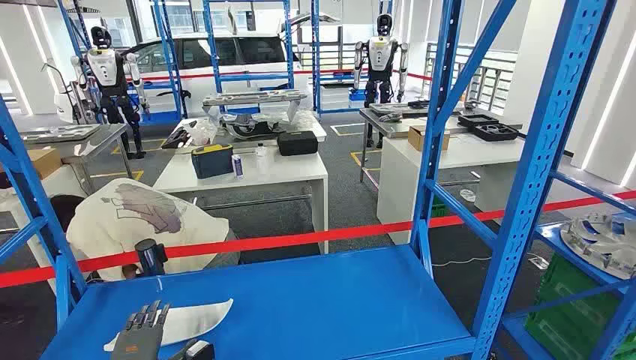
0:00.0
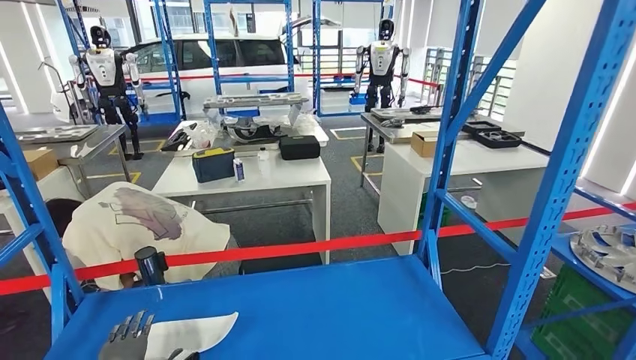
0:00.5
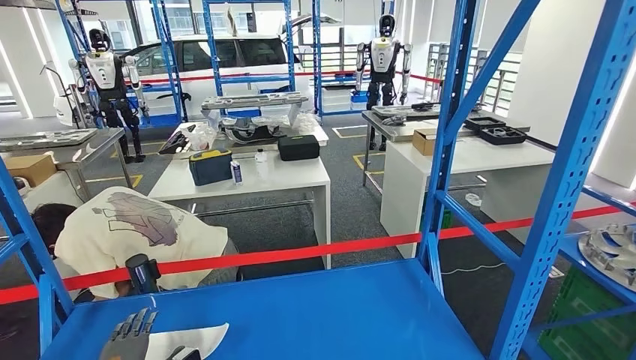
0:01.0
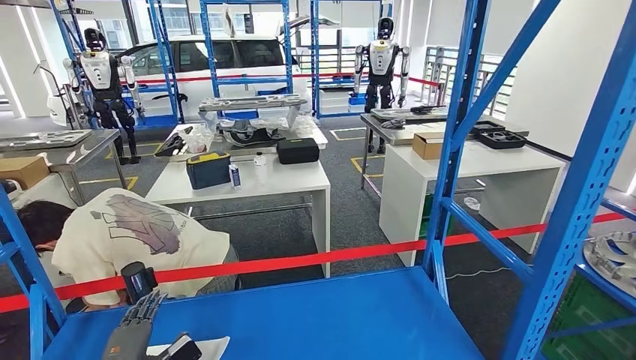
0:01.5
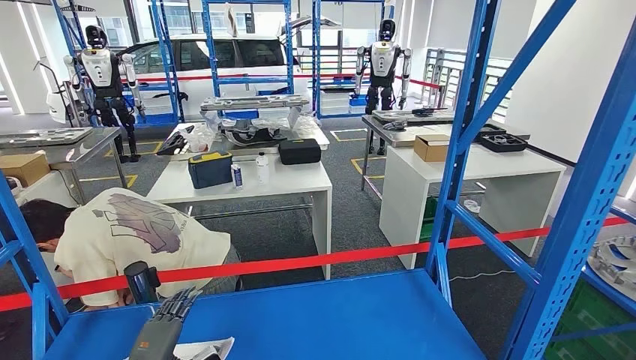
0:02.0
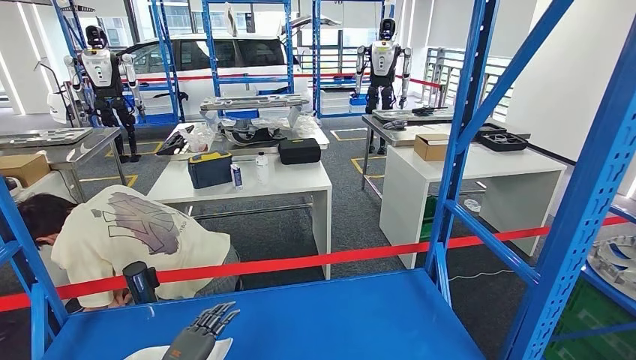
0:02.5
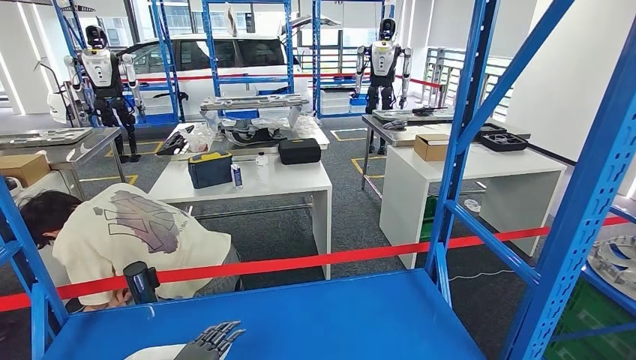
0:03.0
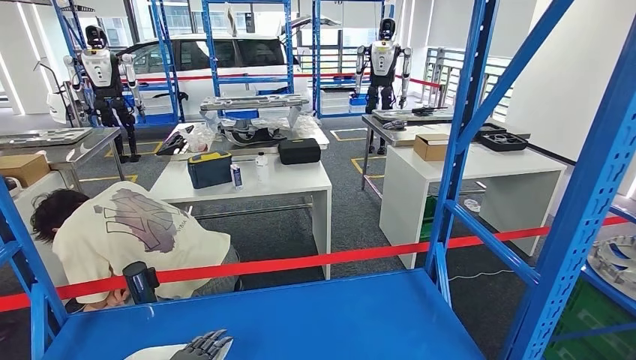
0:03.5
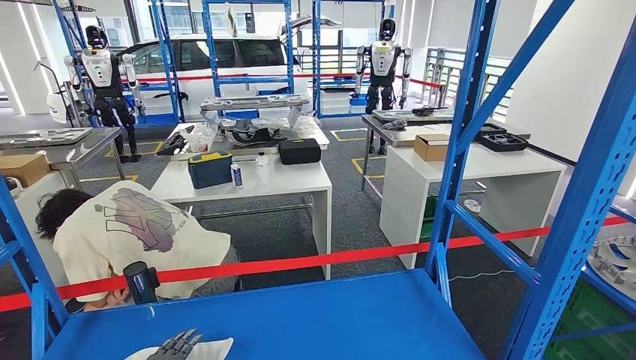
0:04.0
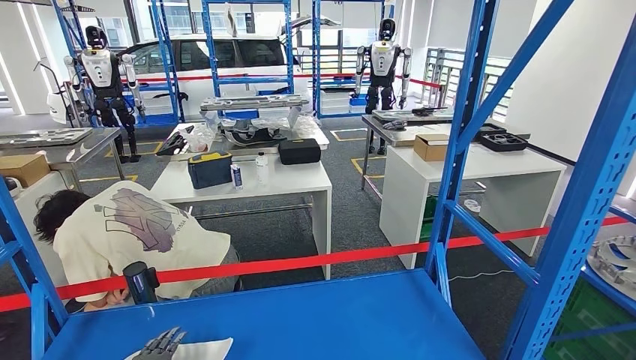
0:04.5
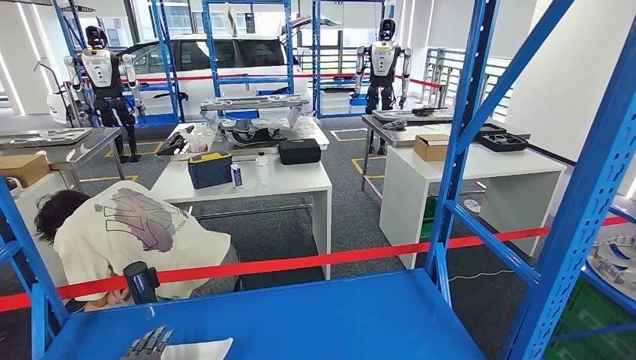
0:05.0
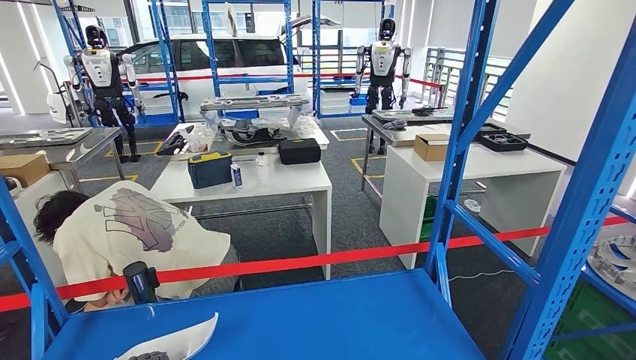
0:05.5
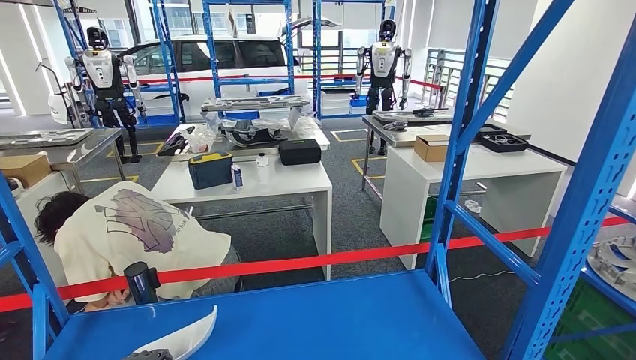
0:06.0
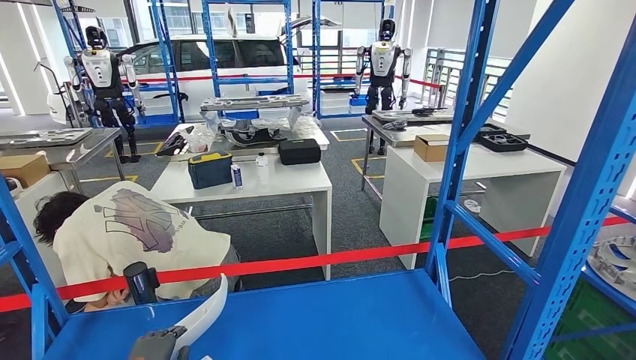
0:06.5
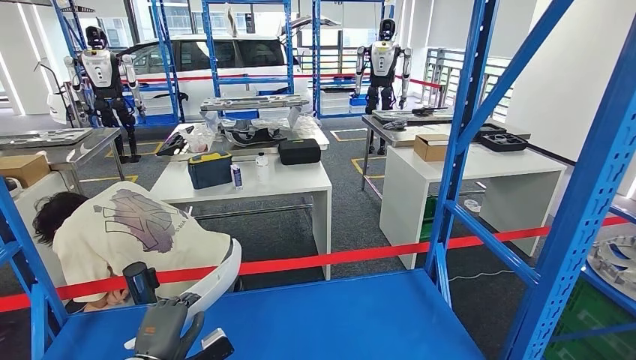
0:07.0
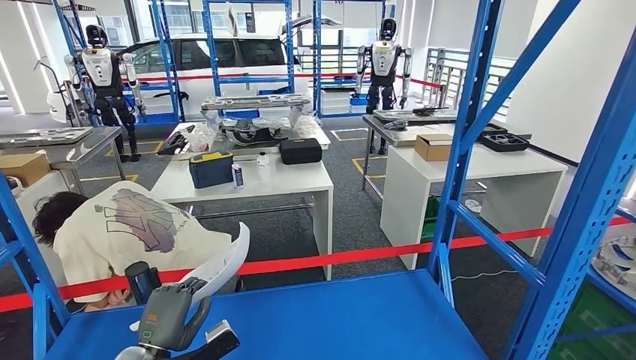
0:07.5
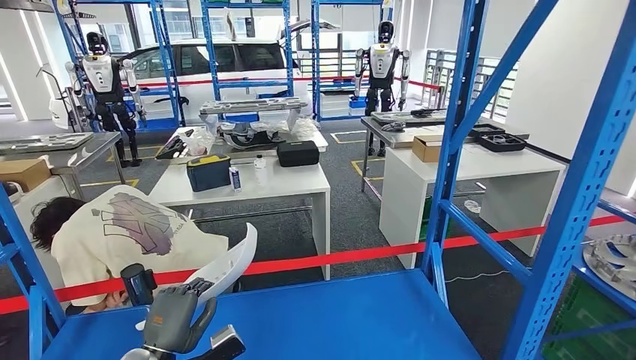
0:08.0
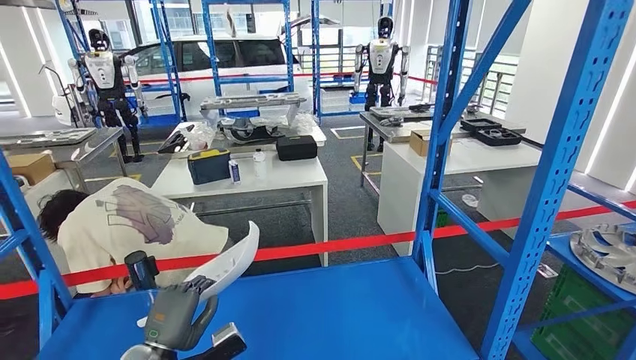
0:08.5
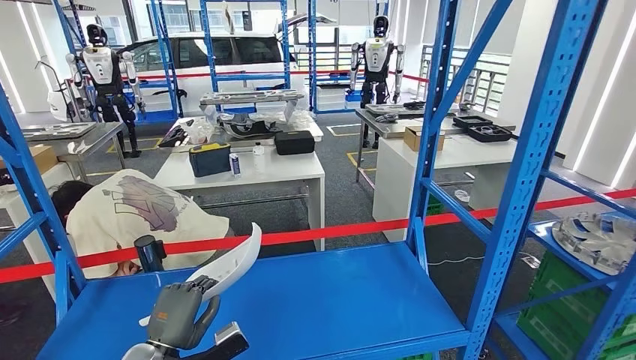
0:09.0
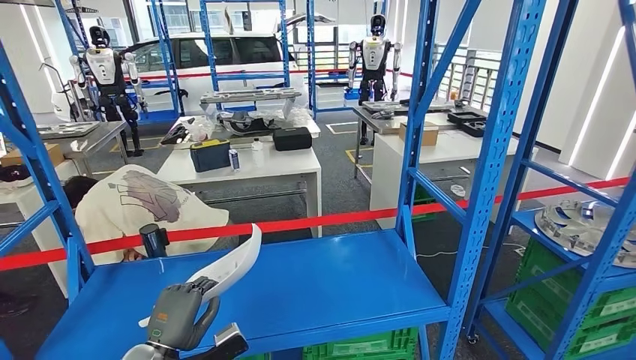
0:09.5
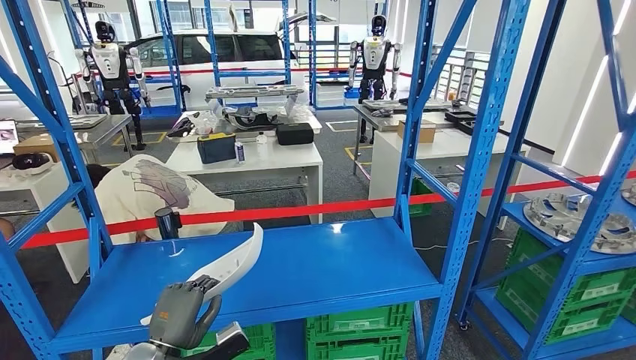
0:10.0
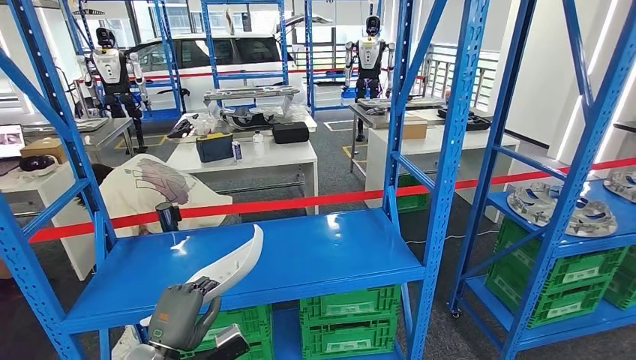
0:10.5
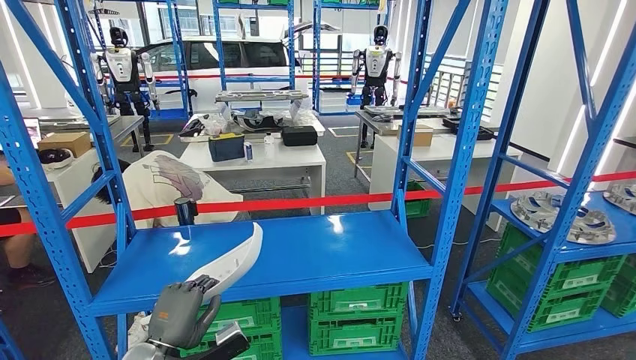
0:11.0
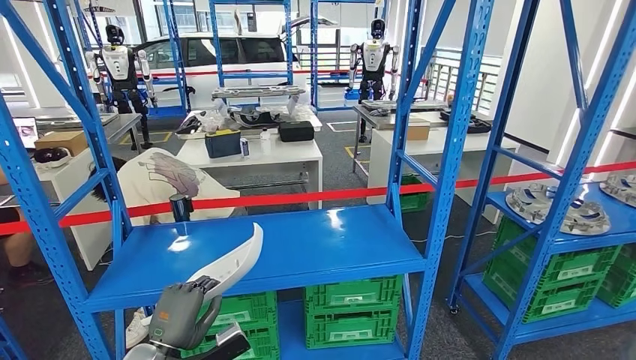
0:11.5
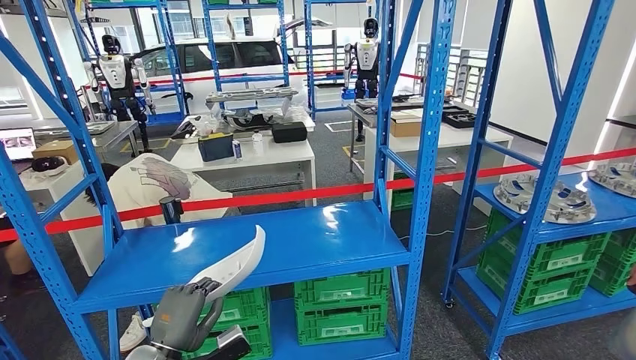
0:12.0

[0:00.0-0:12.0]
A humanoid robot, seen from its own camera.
Step, 0:00.0 to 0:07.0: Pick up the small parts from the shelf.
0:02.0 to 0:04.0: The left hand changes place by approximately 5 cm.
0:04.0 to 0:06.0: There are only small adjustments of the hands.

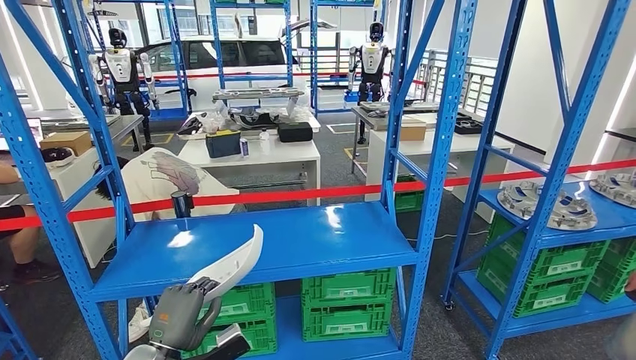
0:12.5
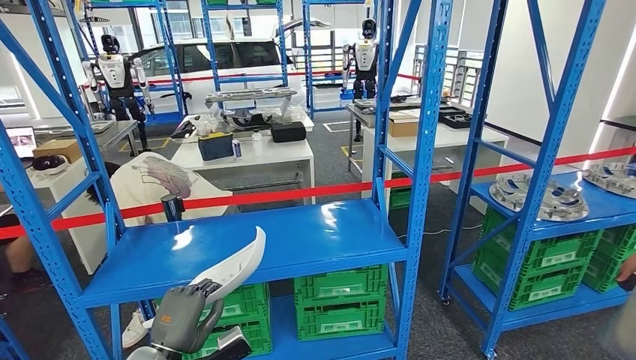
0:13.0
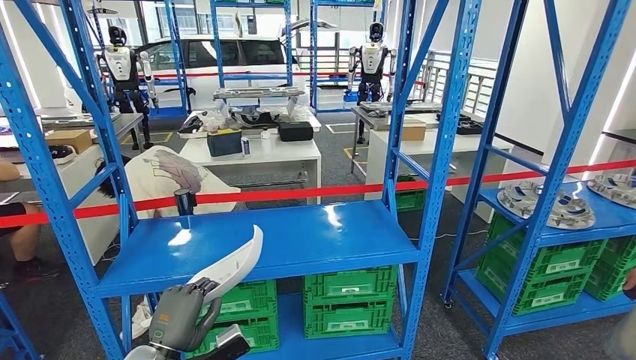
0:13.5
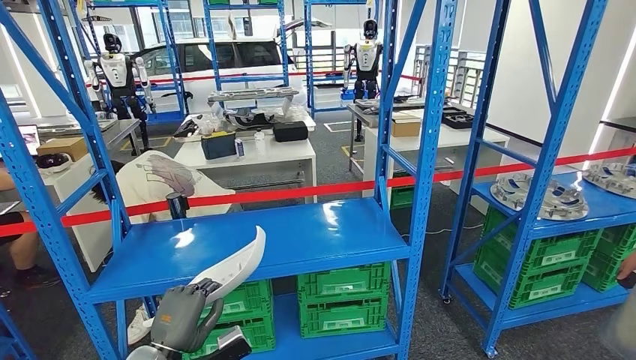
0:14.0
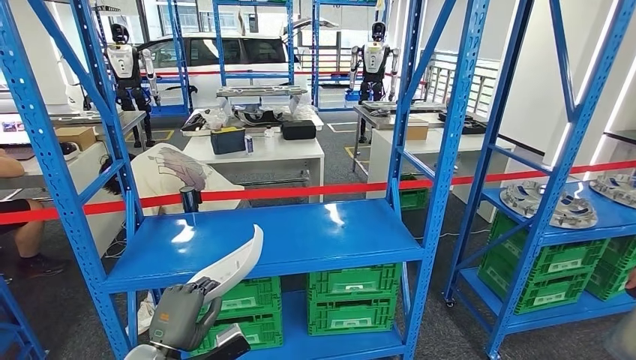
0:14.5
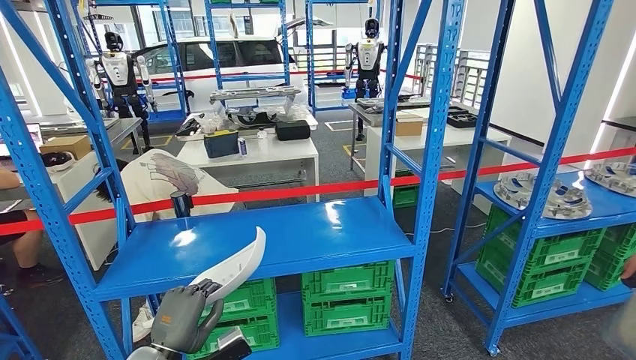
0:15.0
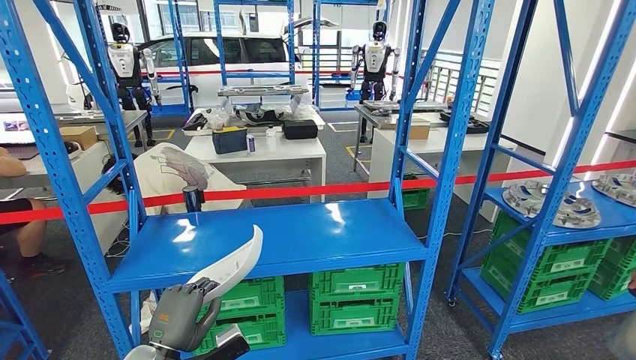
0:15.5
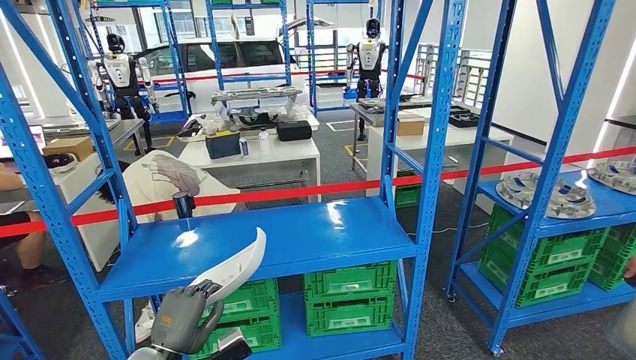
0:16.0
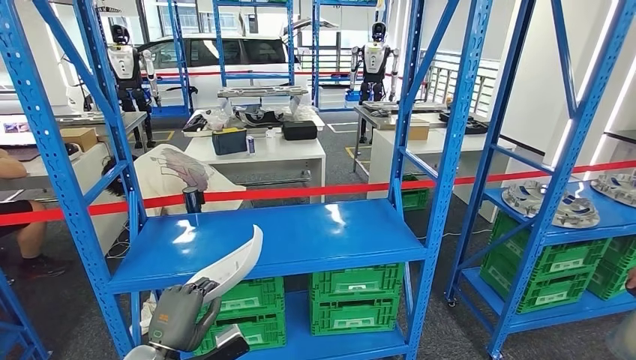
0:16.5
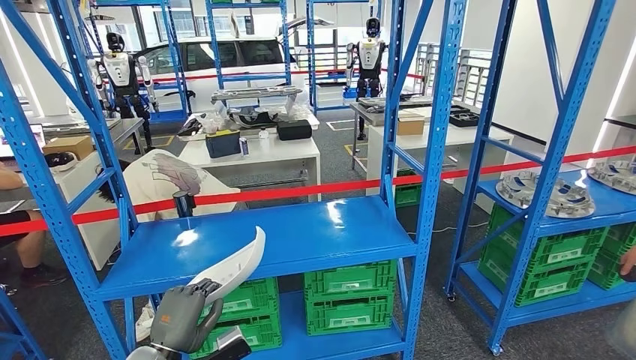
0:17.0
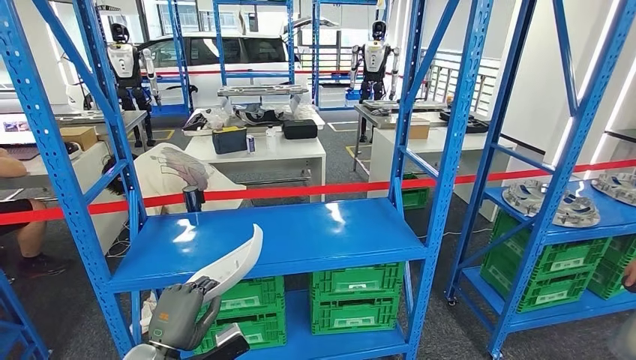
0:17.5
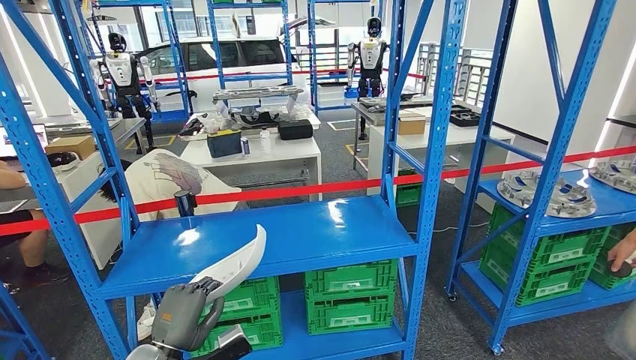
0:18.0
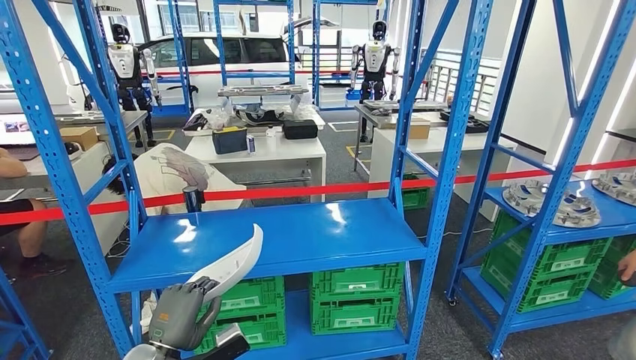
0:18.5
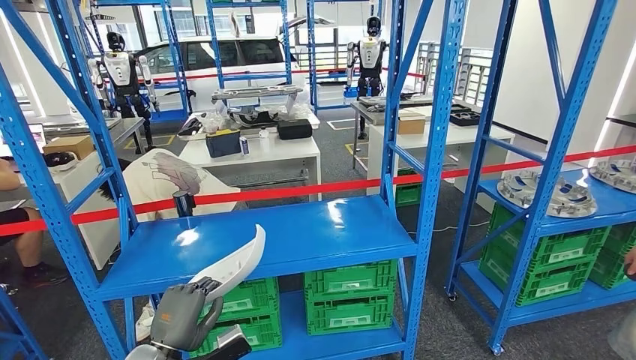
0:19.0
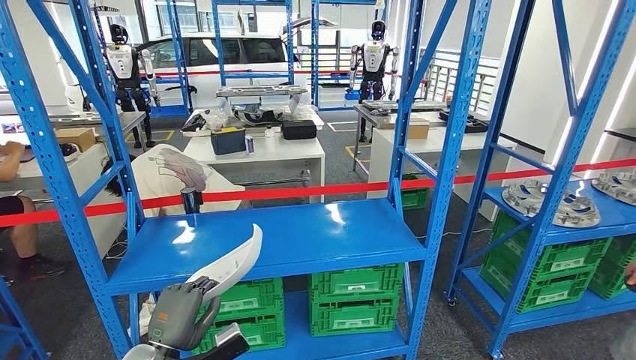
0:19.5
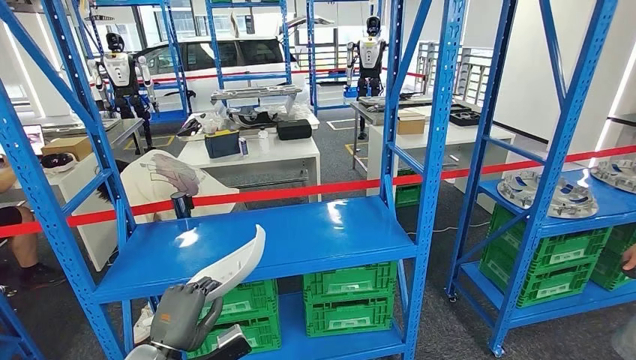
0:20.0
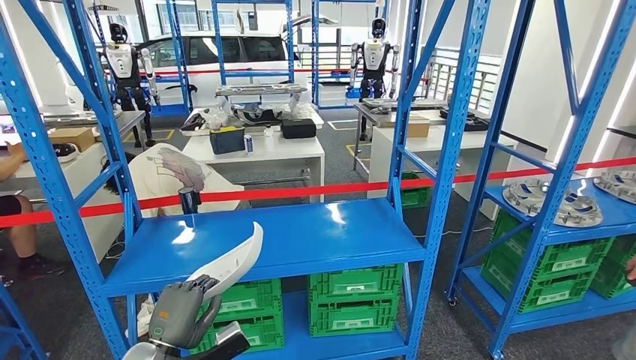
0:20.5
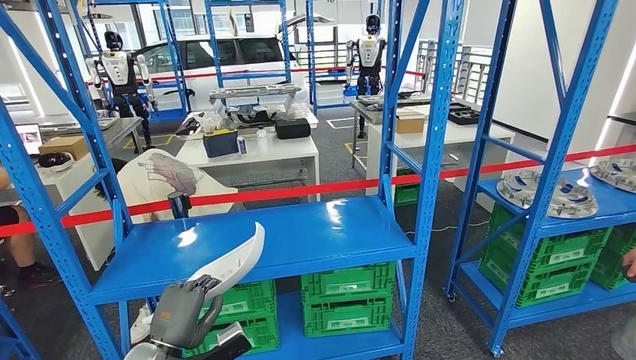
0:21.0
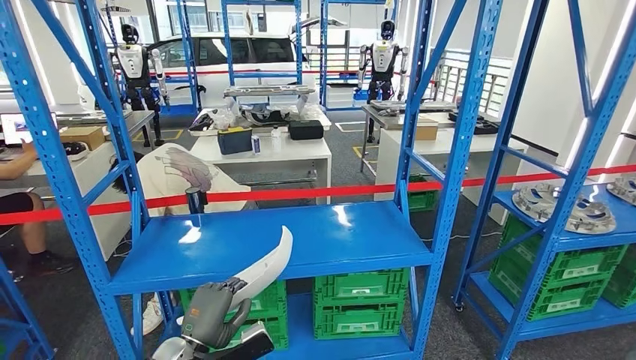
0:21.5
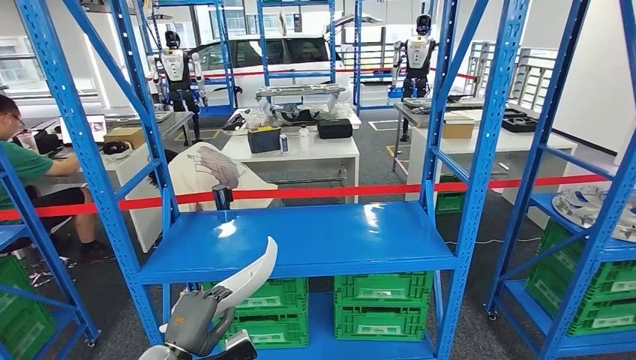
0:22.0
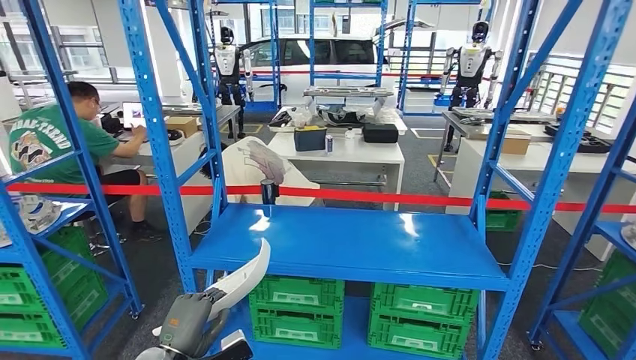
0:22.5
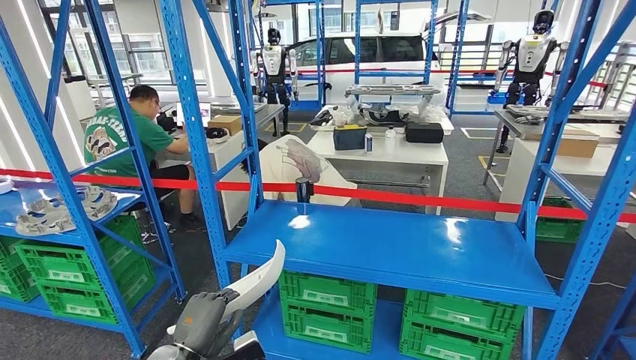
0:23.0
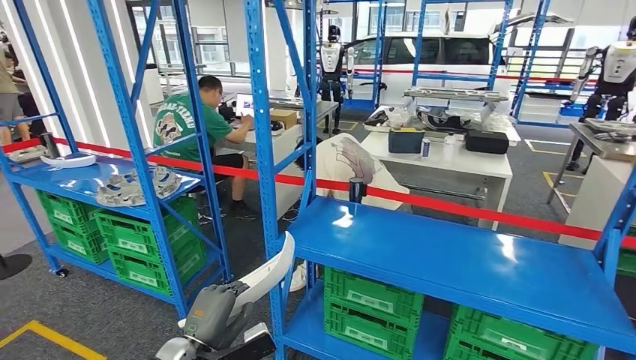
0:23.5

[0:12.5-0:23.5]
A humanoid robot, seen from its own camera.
0:16.0 to 0:20.0: Both hands stay put.
